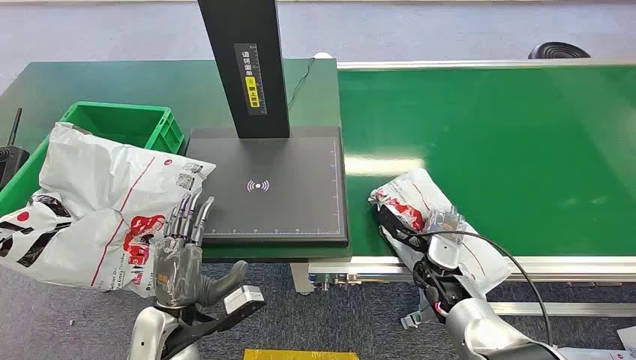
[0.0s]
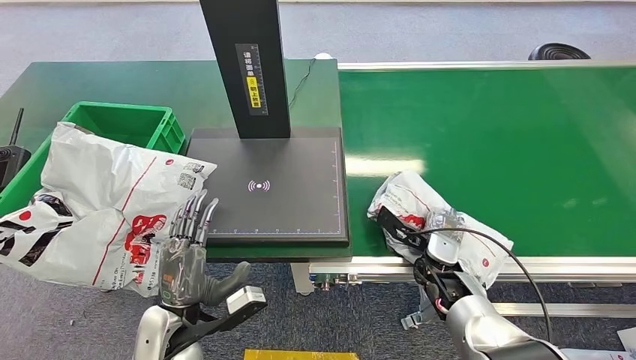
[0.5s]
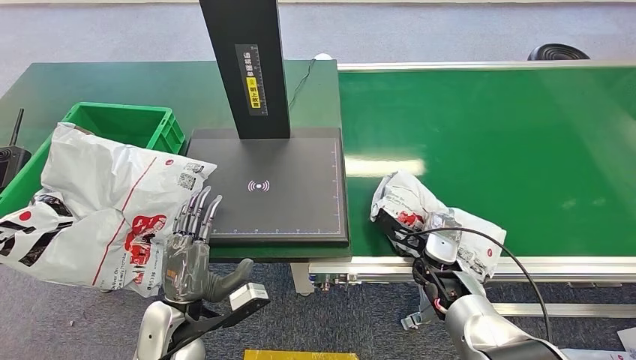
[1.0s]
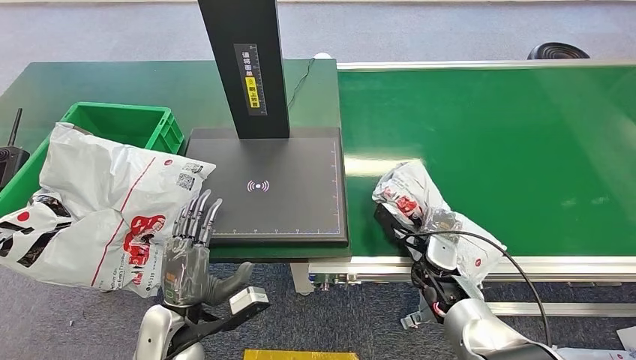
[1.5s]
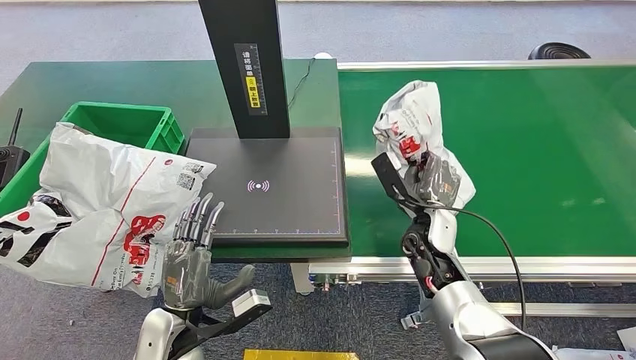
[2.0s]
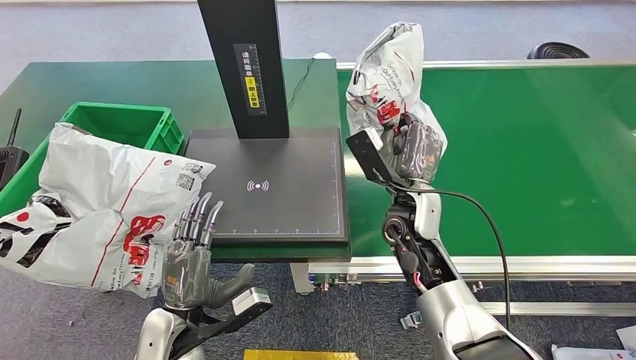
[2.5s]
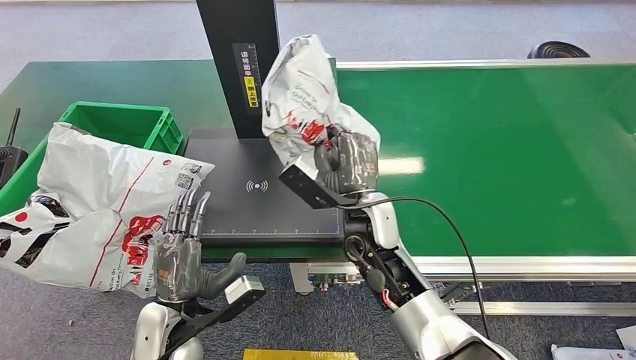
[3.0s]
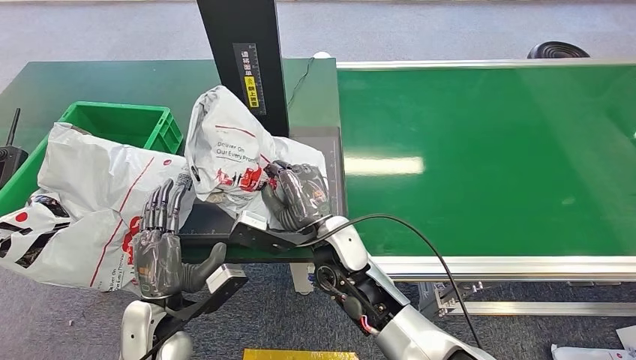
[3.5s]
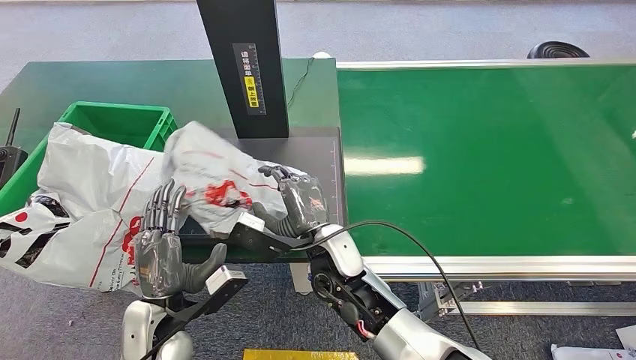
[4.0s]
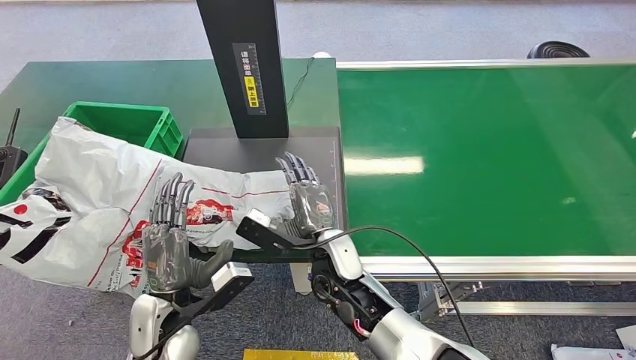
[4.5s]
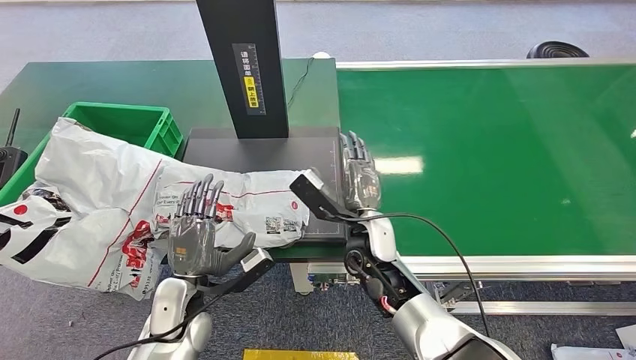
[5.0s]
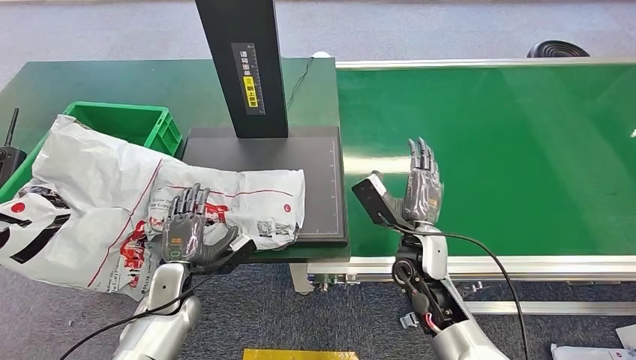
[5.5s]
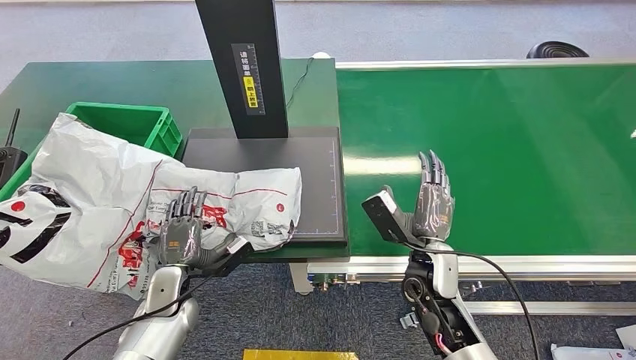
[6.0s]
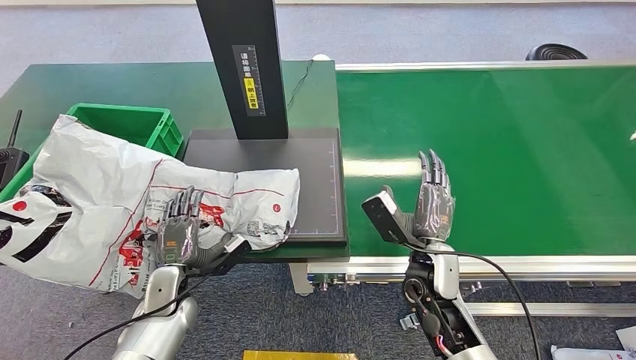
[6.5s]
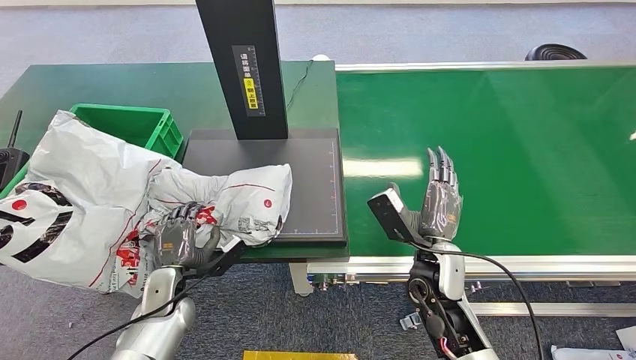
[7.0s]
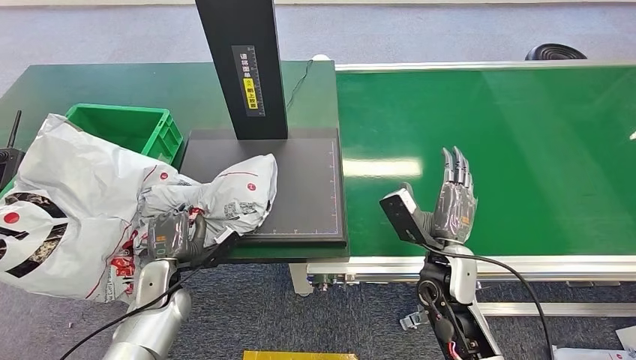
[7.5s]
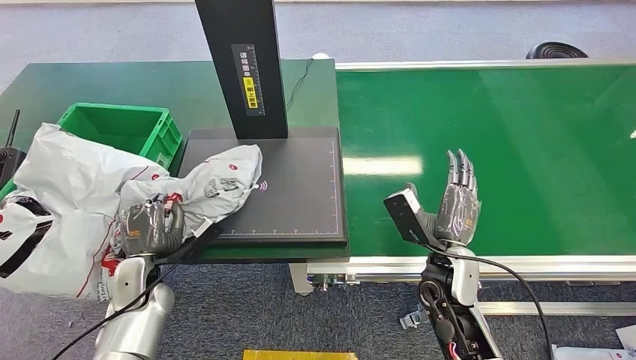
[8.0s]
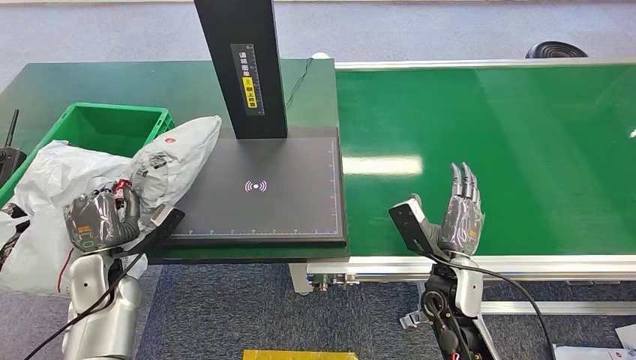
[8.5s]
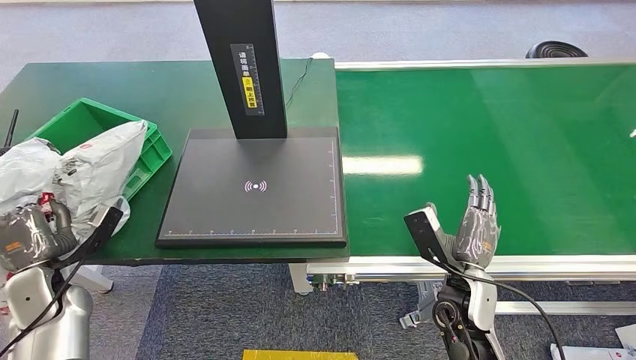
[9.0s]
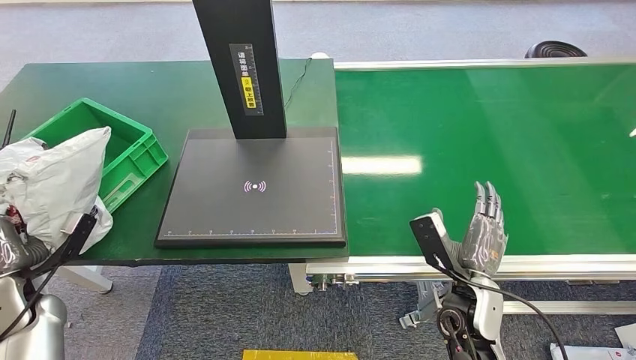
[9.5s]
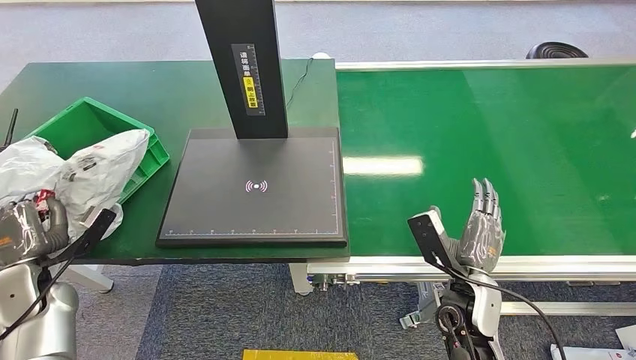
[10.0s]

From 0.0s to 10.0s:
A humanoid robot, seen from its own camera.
Step, from 0.0s to 2.5s: Pick up the package from the conveyor belt.
Step, from 3.0s to 6.0s: Place the package onto the inbound machine.
Step, from 6.5s to 10.0s: Pick up the package from the inbound machine.
